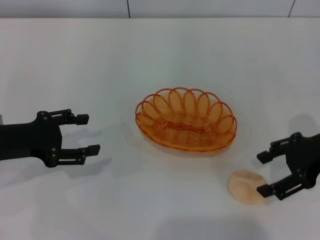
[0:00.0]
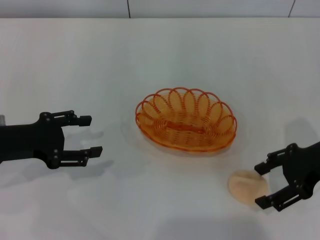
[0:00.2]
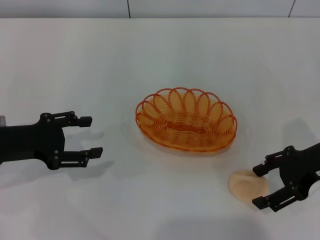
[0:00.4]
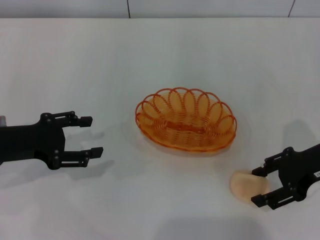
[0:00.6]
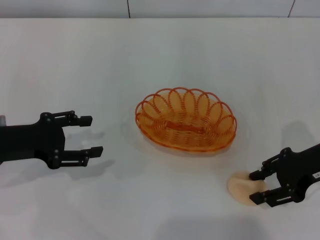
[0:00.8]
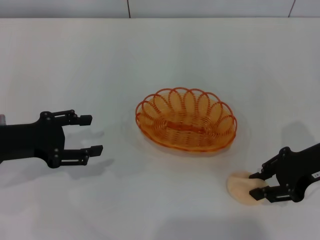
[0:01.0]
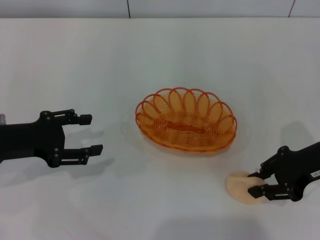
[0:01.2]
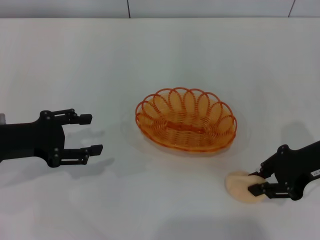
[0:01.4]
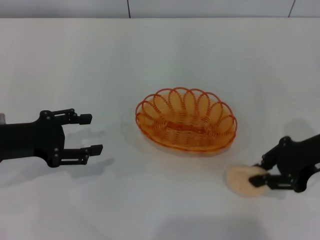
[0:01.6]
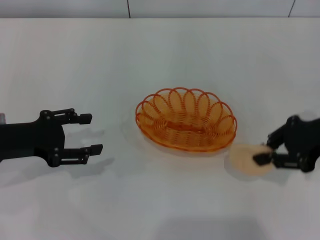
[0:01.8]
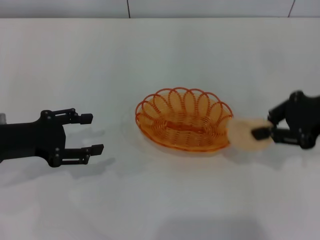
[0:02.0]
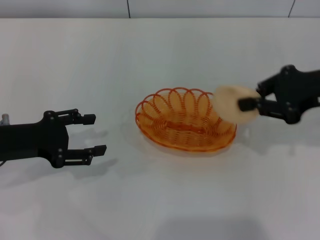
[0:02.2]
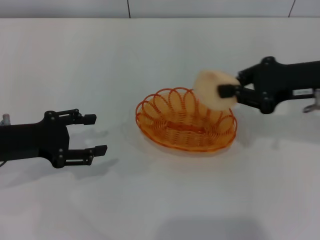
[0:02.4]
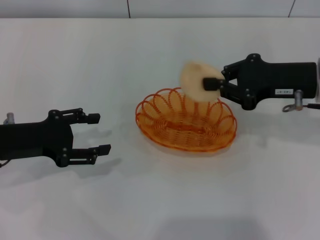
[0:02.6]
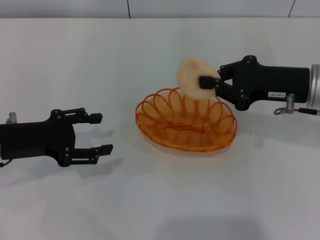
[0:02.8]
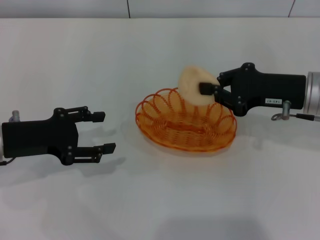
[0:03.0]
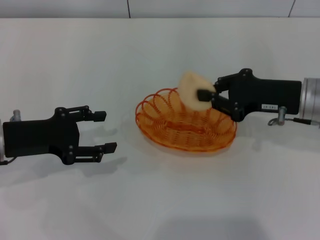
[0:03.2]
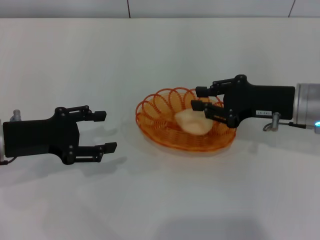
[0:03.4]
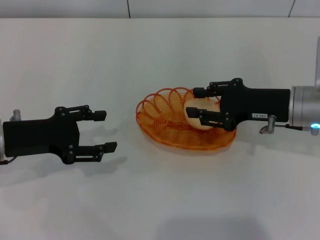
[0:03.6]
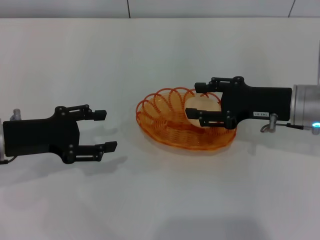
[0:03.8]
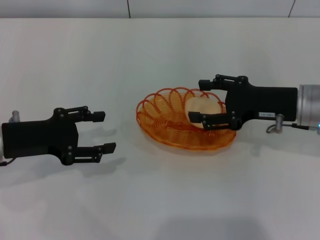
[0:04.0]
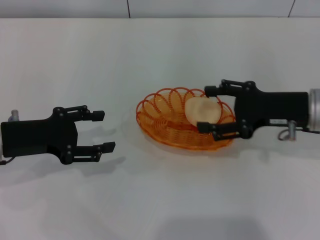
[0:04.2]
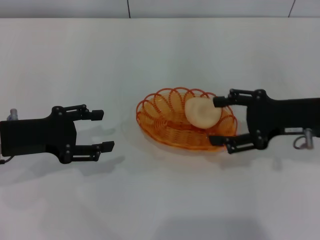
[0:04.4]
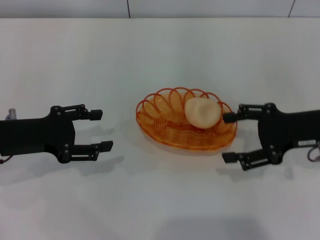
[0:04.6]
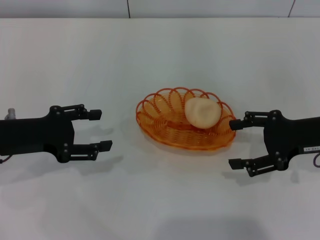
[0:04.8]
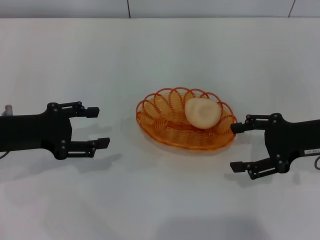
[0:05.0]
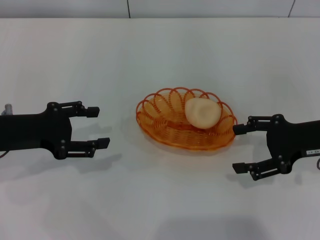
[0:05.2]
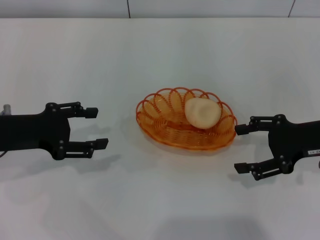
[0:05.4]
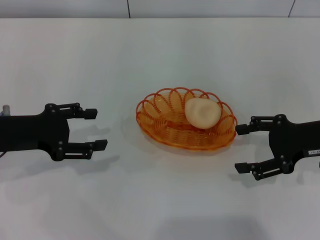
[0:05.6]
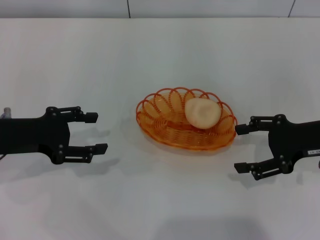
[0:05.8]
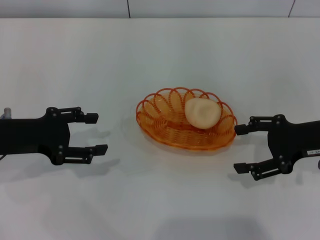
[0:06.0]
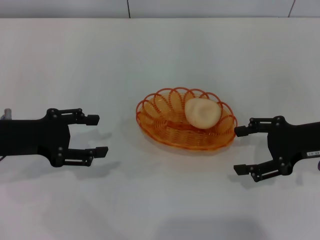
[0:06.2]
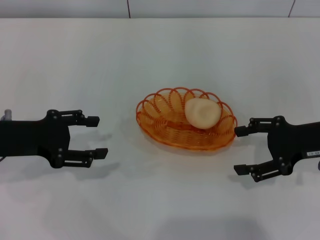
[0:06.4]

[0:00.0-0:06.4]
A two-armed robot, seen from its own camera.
Step, 0:00.2 to 0:01.8: Pick up the egg yolk pastry with the right gripper.
Step, 0:02.0 to 0:04.6: Place the egg yolk pastry into the basket with the right gripper.
0:00.0 to 0:01.6: The right gripper closes its fingers.
0:01.6 to 0:03.2: The right gripper goes upward and returns, roughly 5 cm each way.
0:03.2 to 0:04.8: The right gripper shifts by some 5 cm, and opens its fingers.
0:04.8 to 0:06.4: Neither gripper changes place.
